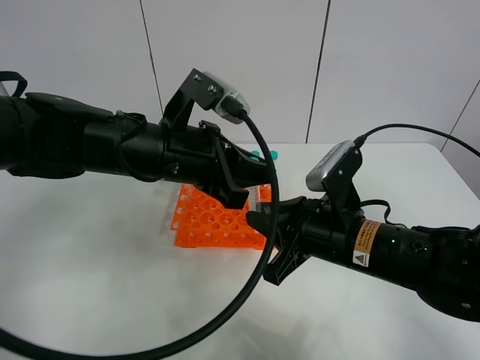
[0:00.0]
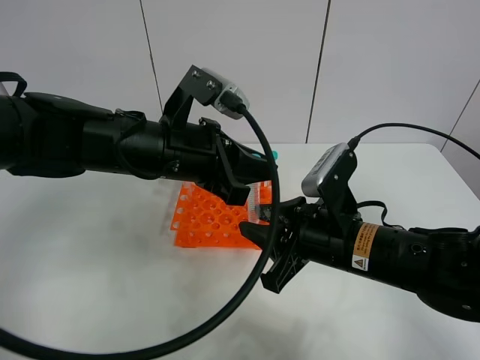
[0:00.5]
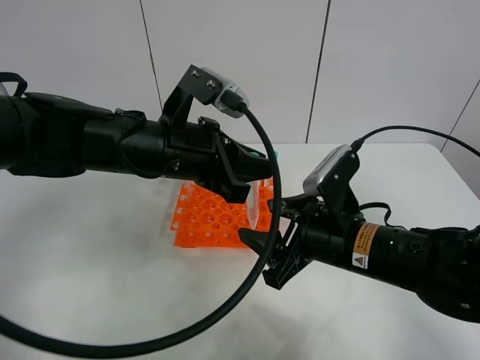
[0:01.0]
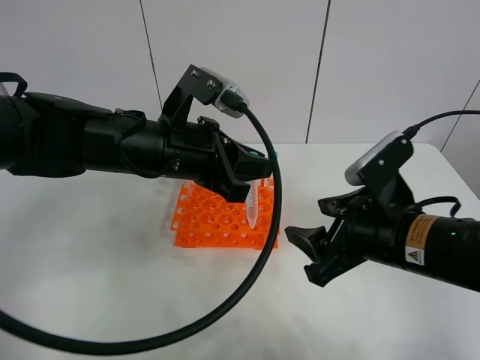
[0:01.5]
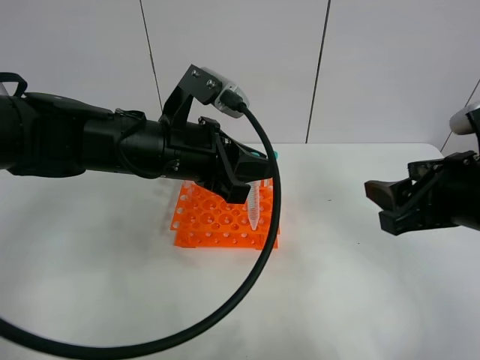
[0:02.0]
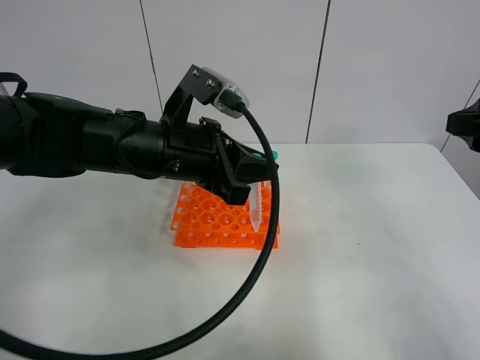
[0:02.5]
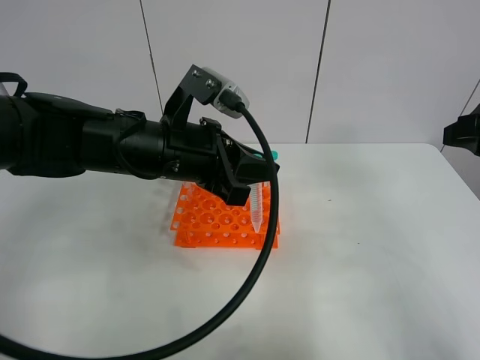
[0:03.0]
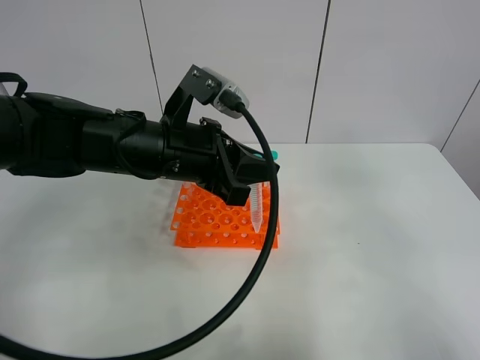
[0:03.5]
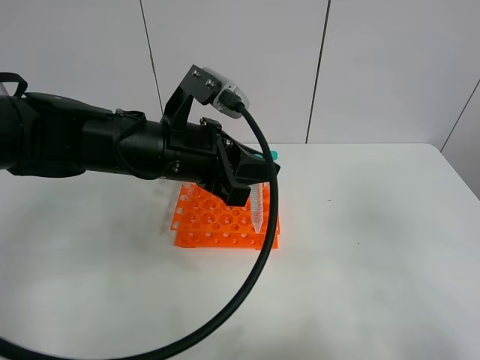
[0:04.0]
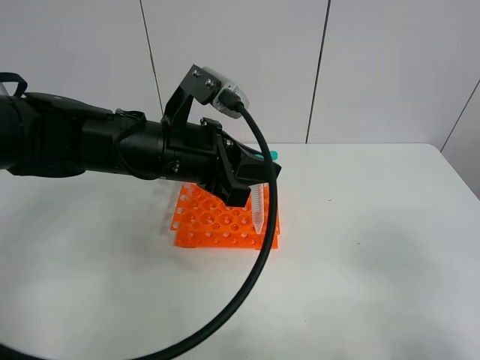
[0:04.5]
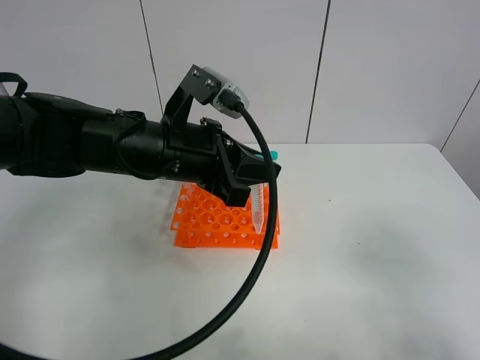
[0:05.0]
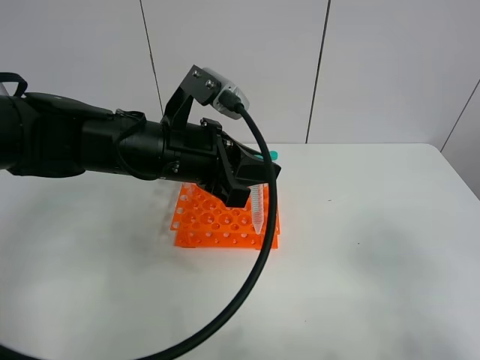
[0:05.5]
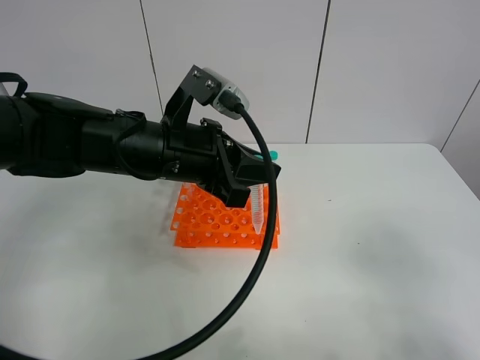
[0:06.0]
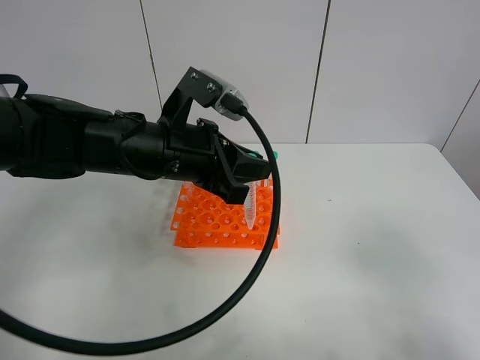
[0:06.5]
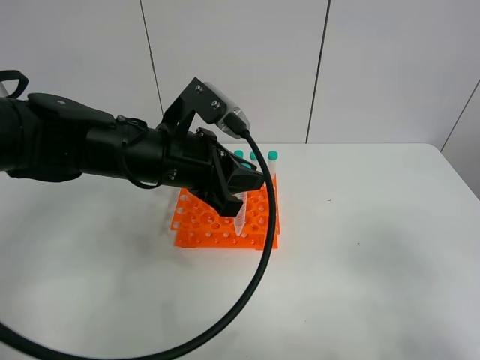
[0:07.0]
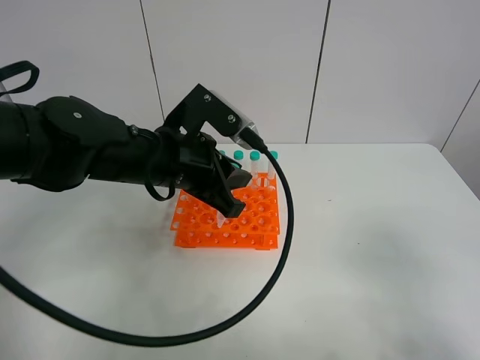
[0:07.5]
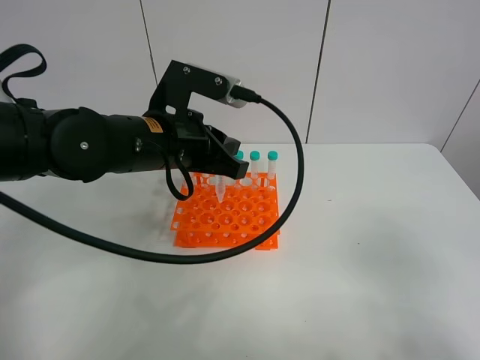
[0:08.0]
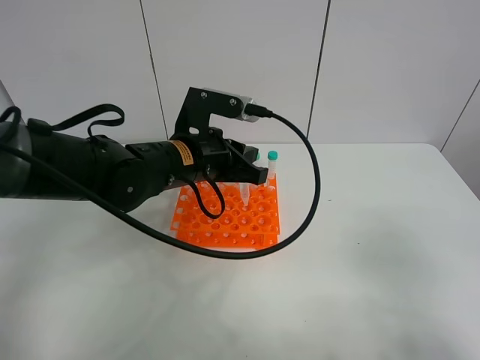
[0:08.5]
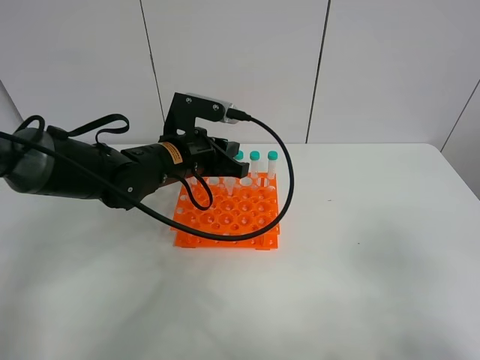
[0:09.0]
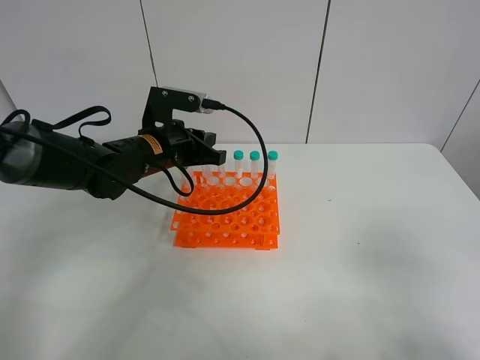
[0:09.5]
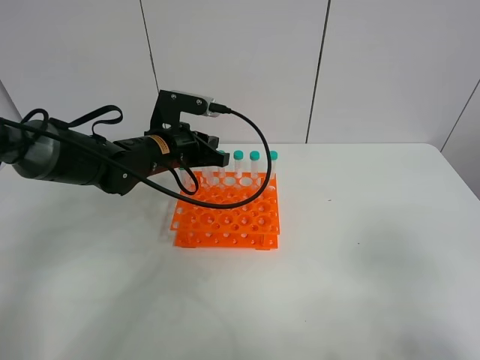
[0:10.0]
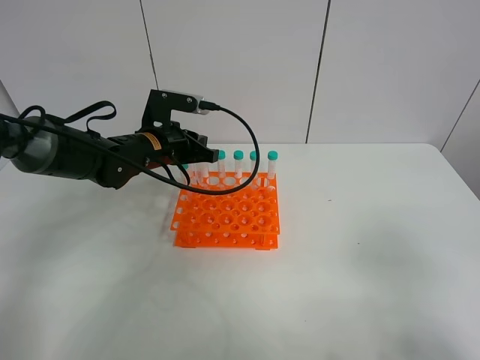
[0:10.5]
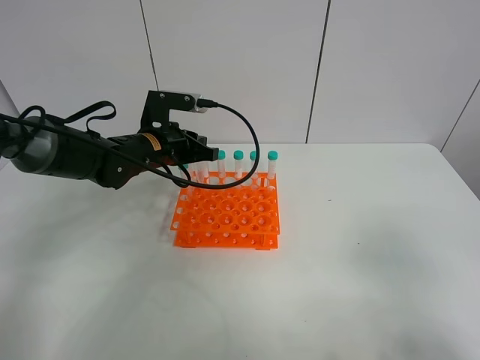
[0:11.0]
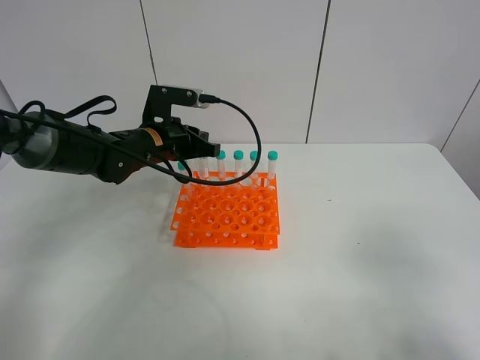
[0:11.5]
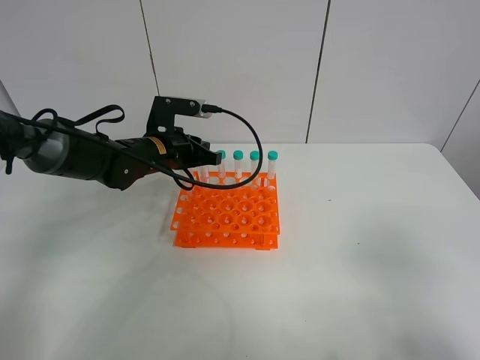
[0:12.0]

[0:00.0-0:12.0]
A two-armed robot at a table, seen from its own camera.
Task of the whole recording: Put the test tube on the table back onto the test tube rack.
0:00.0 to 0:02.0: The right gripper goes roughly 15 cm to the right and upward, and opens.
0:02.0 to 0:04.0: The right gripper heads backward, upward and to the right, covering some 15 cm.
0:04.0 to 0:06.0: The right gripper goes about 5 cm downward.
0:08.0 to 0:10.0: The left gripper heads forward and downward, covering approximately 10 cm.
0:10.0 to 0:12.0: There are only small adjustments of the grippers.

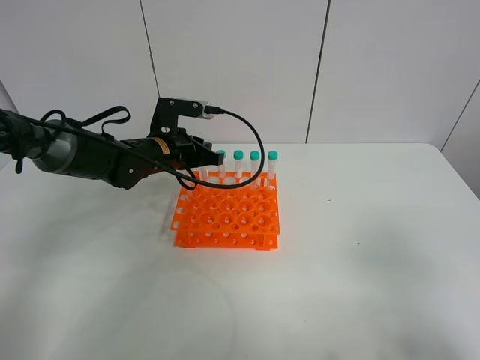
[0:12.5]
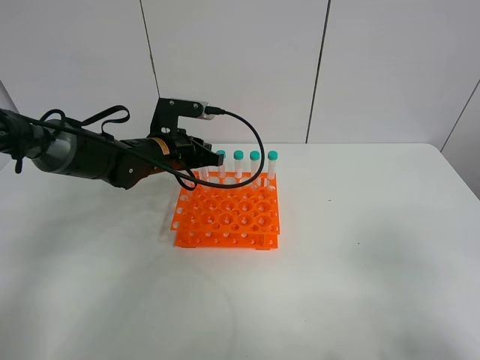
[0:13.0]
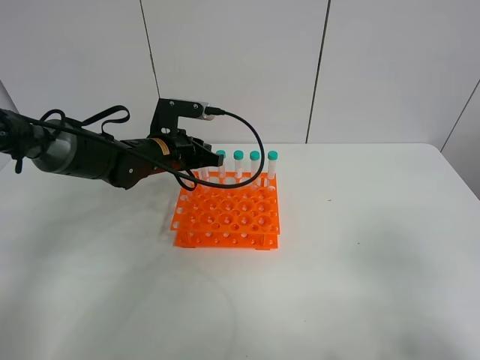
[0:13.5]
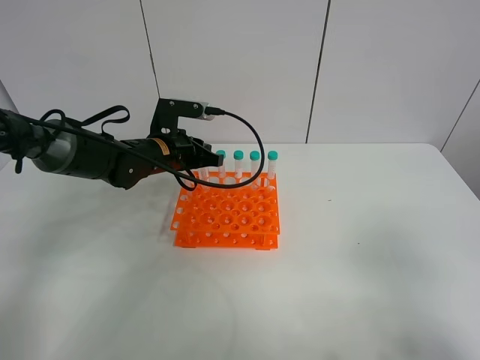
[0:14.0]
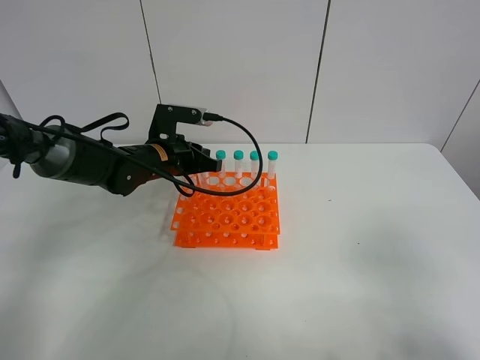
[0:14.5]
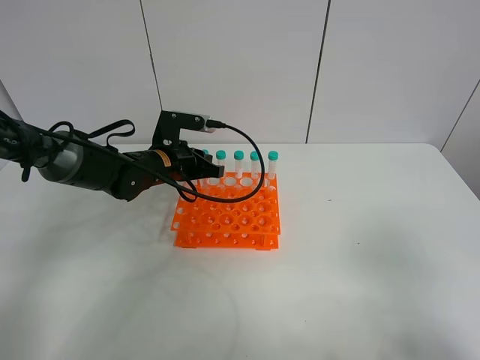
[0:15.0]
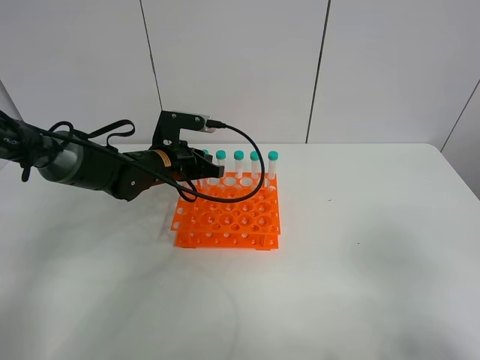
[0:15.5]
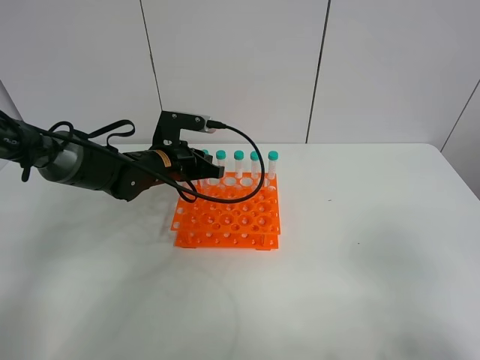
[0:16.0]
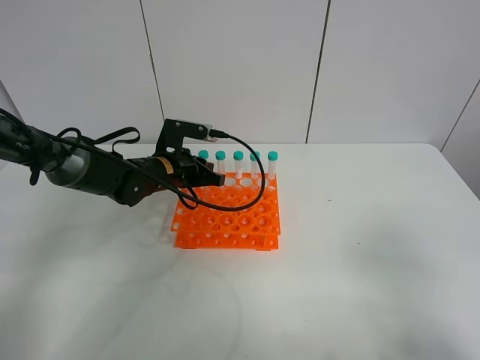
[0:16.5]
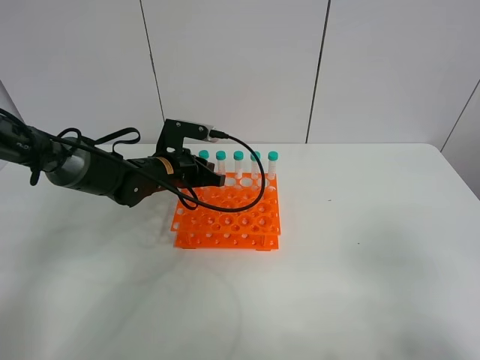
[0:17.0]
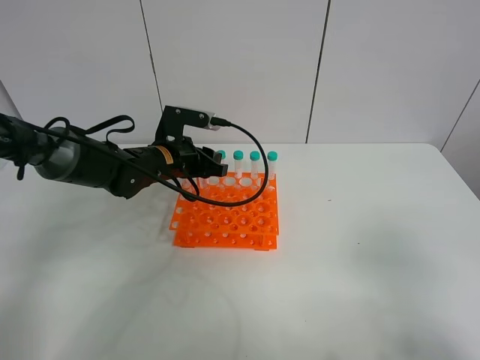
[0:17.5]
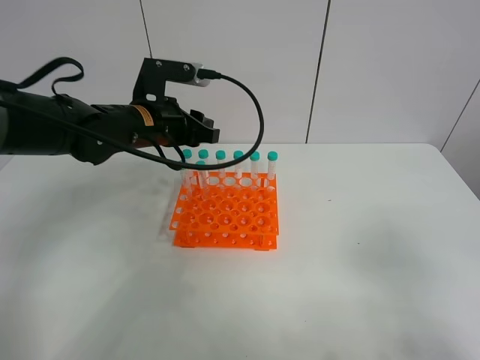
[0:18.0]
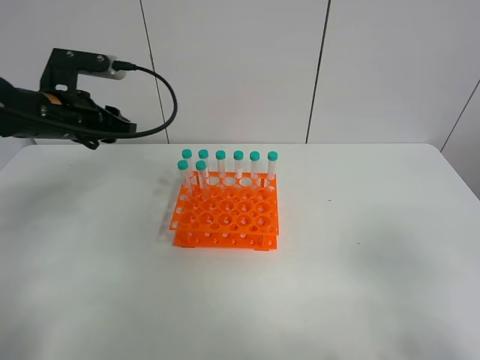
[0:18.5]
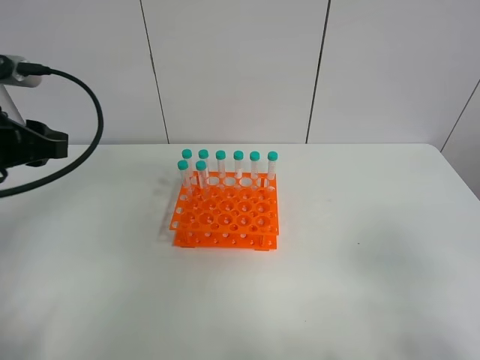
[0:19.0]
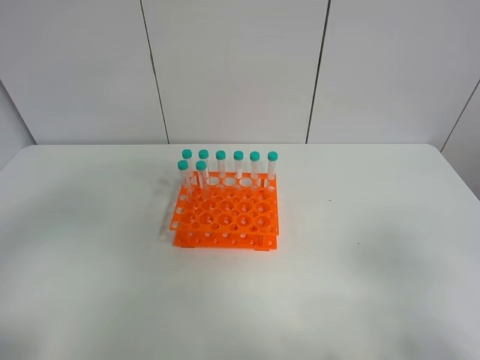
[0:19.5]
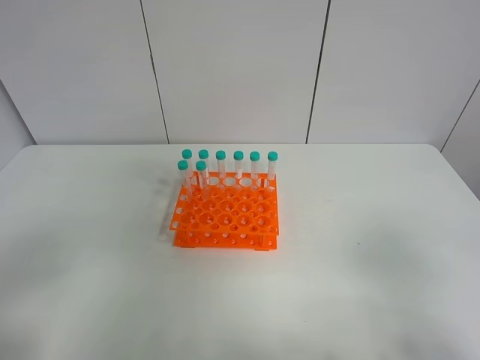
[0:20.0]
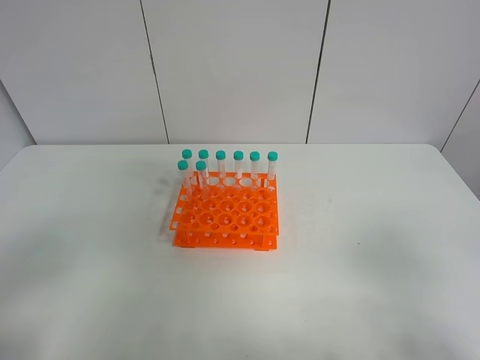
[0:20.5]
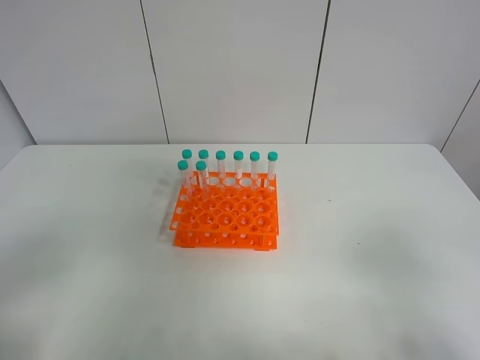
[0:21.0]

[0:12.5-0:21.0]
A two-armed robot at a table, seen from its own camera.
Task of the whole recording: Put the test tube on the table back onto the test tube rack.
Step, 0:12.5 to 0:18.0: Place the test tube on the test tube rack with the left gripper.
0:12.5 to 0:14.5: The two grippers keep their place.
0:14.5 to 0:16.5: There are only small adjustments of the grippers.
0:16.5 to 0:19.0: The left gripper is displaced upward, backward and to the left by approximately 30 cm, and opens its fingers.
0:19.0 to 0:21.0: The left gripper moves backward, some 25 cm.

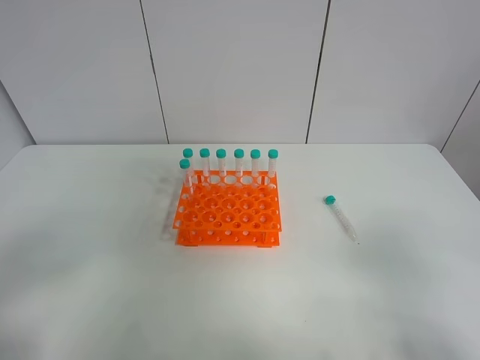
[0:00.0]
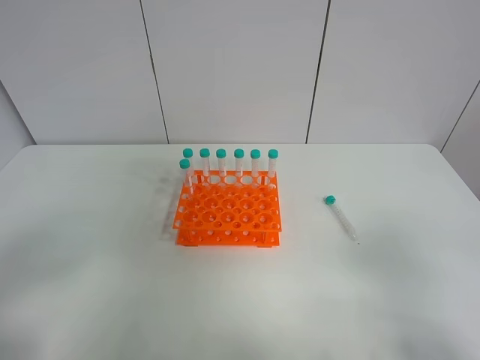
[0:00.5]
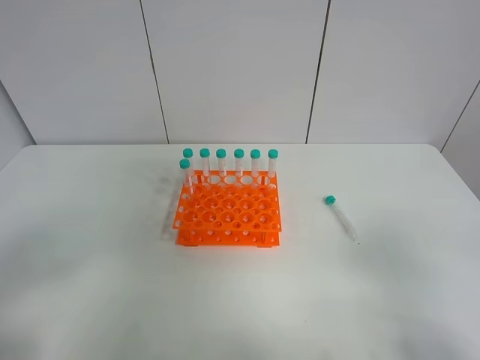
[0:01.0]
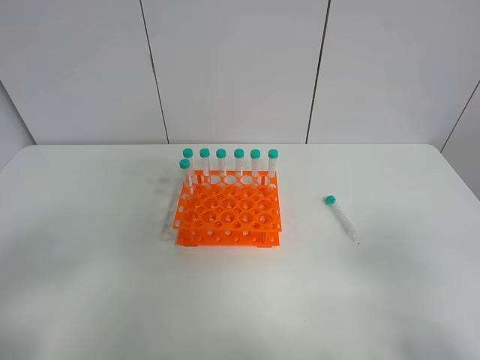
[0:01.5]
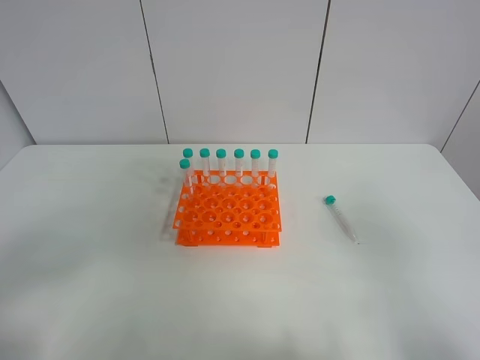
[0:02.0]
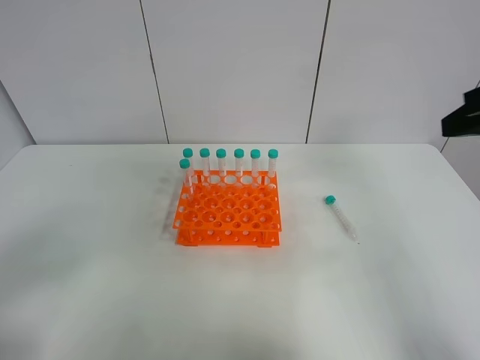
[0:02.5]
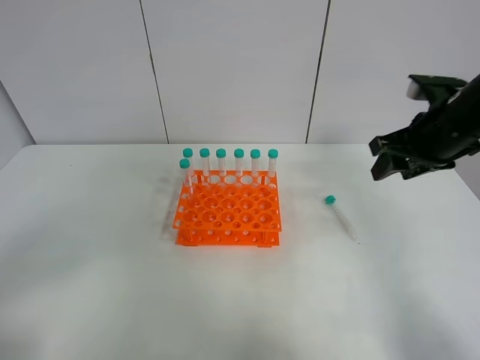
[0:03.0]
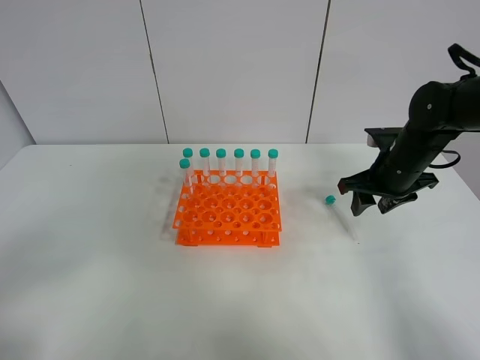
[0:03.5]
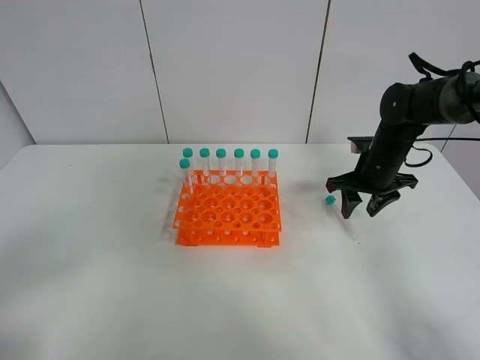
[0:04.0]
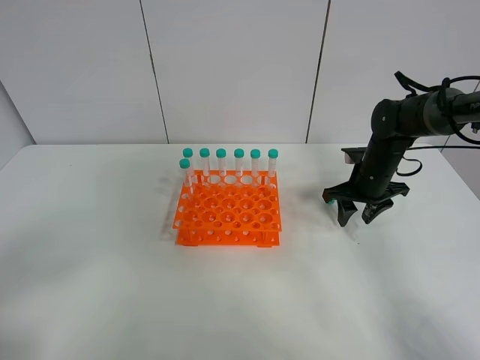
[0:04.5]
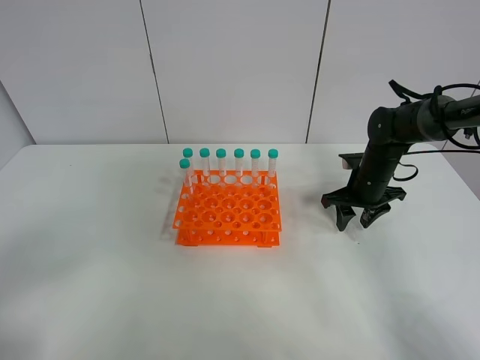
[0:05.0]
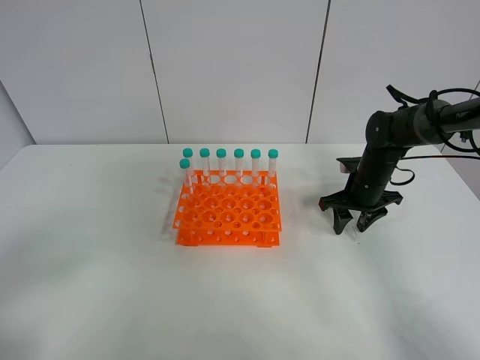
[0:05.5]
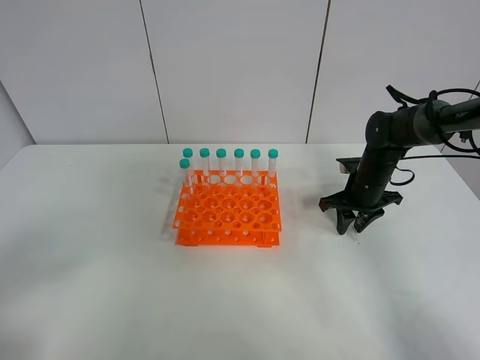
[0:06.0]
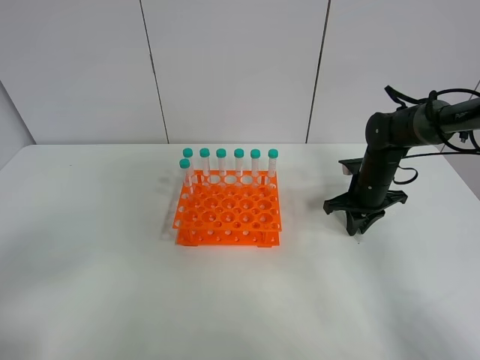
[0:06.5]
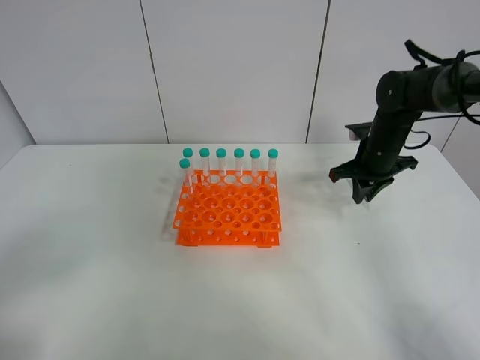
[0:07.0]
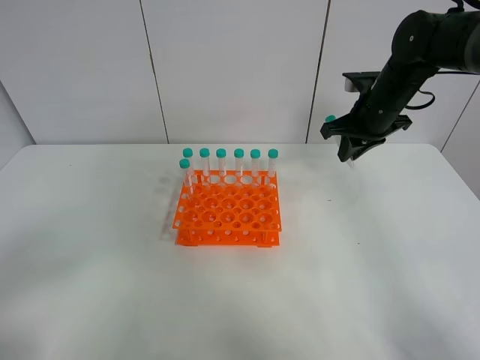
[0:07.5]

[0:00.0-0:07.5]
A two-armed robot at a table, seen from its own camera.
Task of the whole recording: Put the test tube on the table back onto the test tube rack.
Step, 0:00.0 to 0:07.0: Pick up the test tube with the right gripper.
0:02.0 to 0:04.0: The right gripper travels forward and downward by approximately 40 cm.
0:04.0 to 0:05.5: The right gripper moves downward, roughly 5 cm.
0:05.5 to 0:07.5: The right gripper goes roughly 15 cm upward, and closes its fingers.
